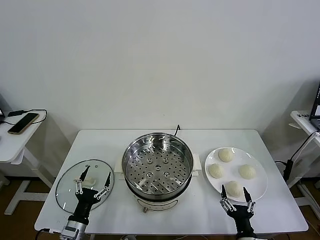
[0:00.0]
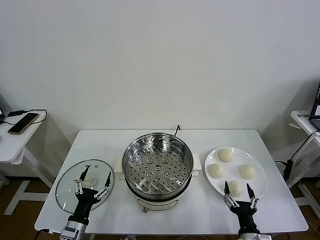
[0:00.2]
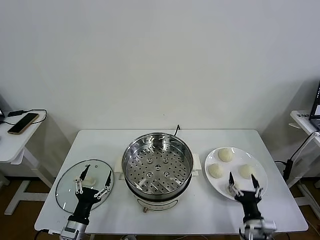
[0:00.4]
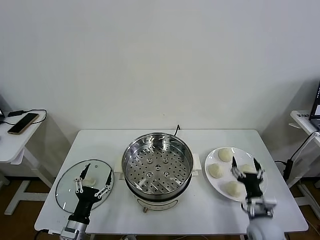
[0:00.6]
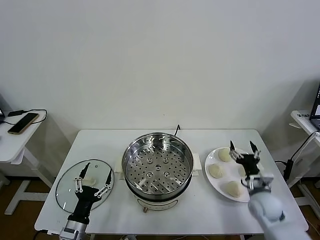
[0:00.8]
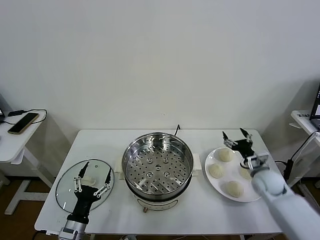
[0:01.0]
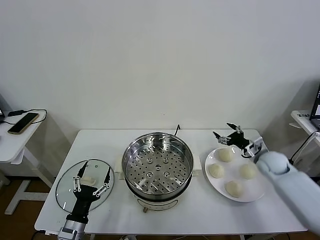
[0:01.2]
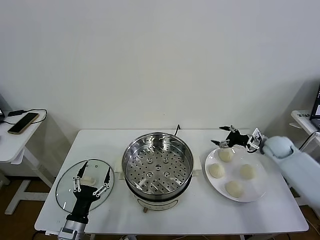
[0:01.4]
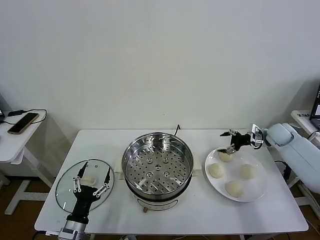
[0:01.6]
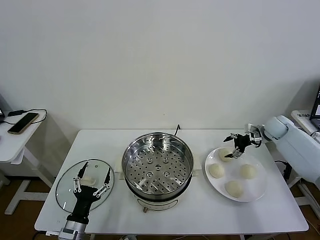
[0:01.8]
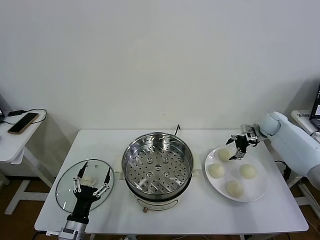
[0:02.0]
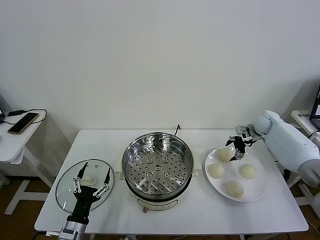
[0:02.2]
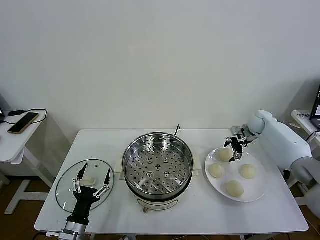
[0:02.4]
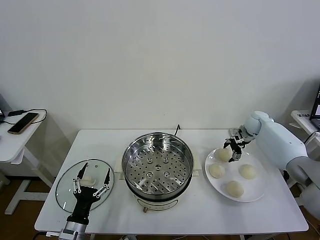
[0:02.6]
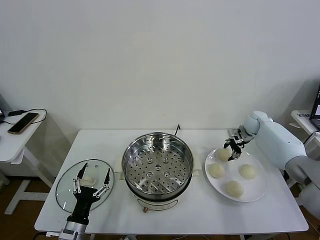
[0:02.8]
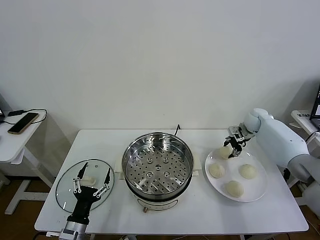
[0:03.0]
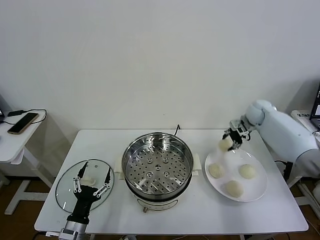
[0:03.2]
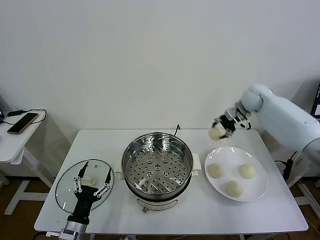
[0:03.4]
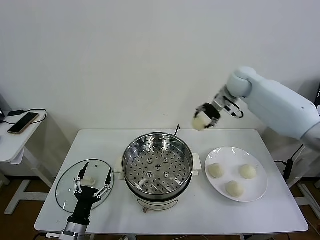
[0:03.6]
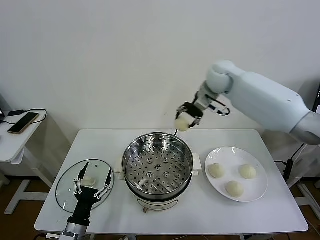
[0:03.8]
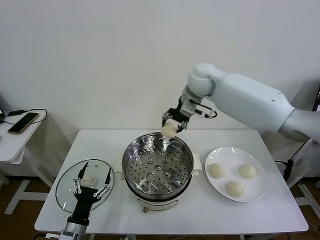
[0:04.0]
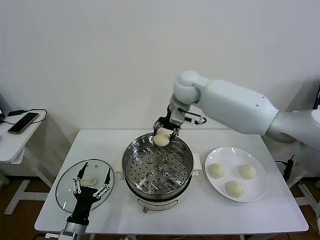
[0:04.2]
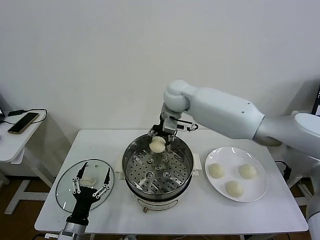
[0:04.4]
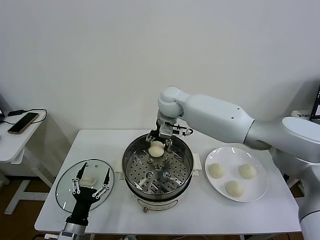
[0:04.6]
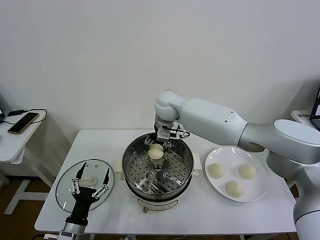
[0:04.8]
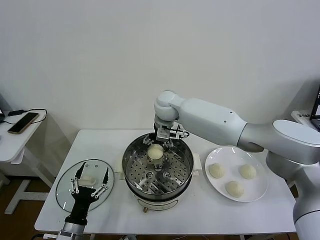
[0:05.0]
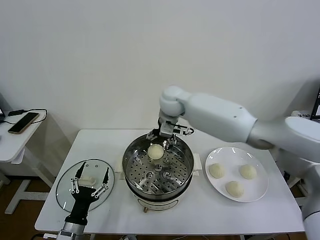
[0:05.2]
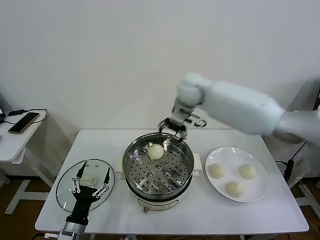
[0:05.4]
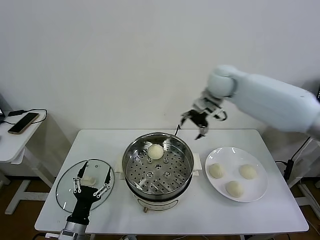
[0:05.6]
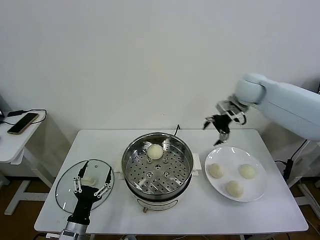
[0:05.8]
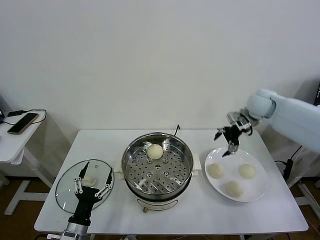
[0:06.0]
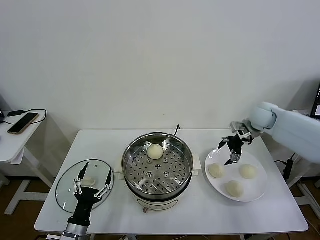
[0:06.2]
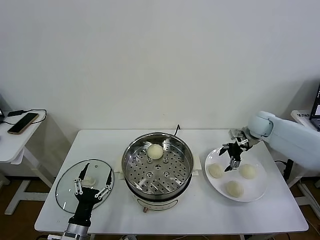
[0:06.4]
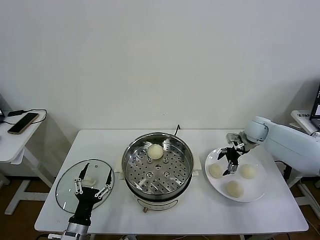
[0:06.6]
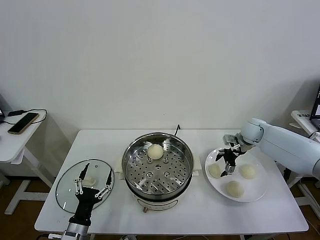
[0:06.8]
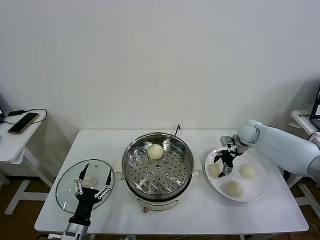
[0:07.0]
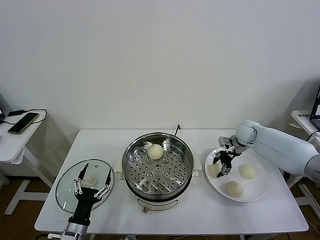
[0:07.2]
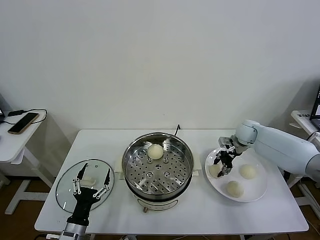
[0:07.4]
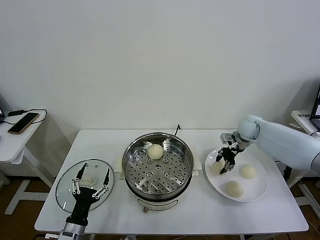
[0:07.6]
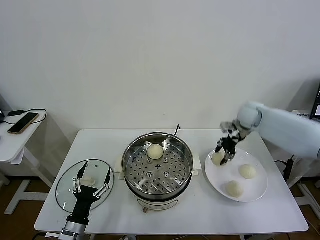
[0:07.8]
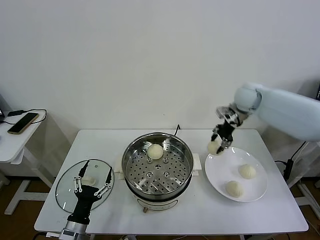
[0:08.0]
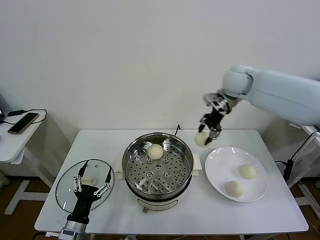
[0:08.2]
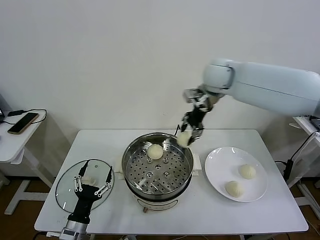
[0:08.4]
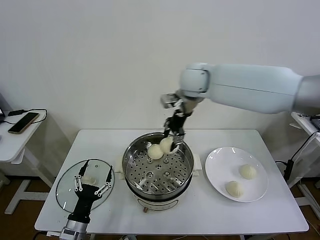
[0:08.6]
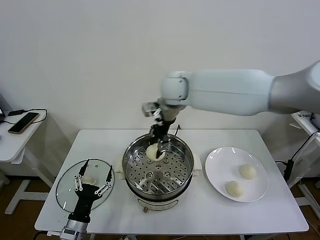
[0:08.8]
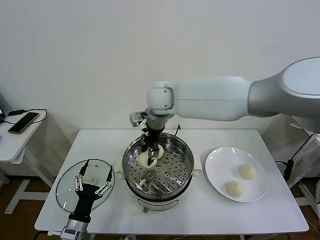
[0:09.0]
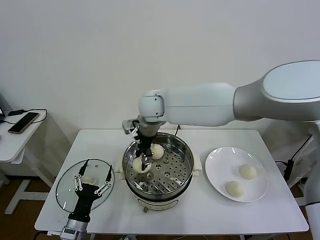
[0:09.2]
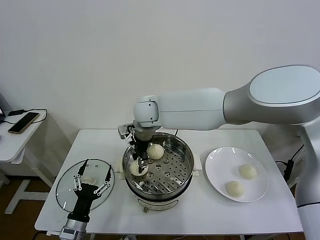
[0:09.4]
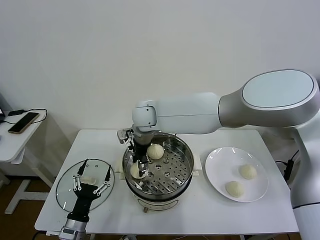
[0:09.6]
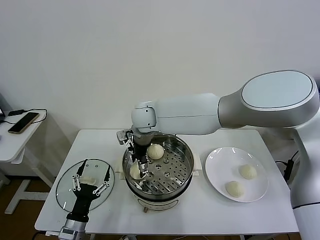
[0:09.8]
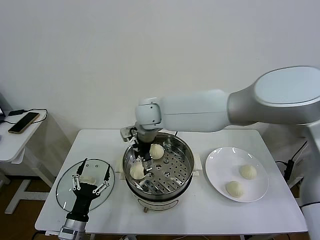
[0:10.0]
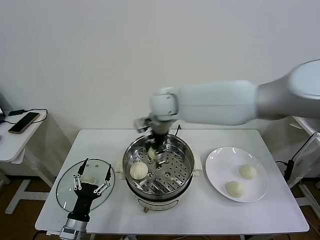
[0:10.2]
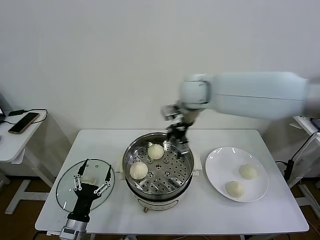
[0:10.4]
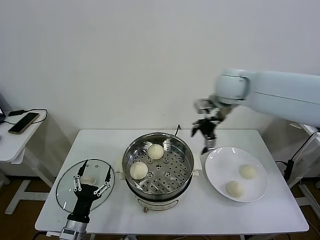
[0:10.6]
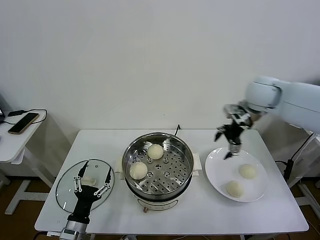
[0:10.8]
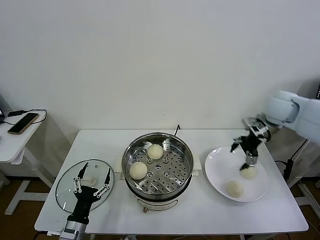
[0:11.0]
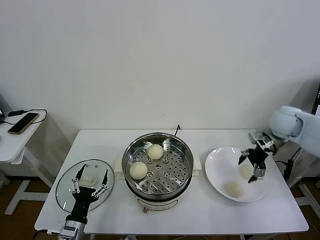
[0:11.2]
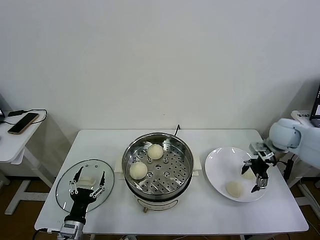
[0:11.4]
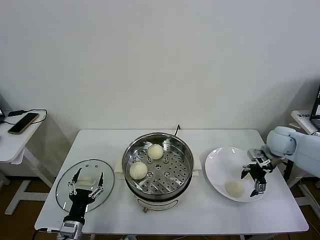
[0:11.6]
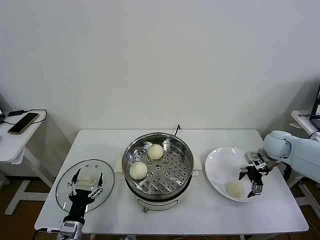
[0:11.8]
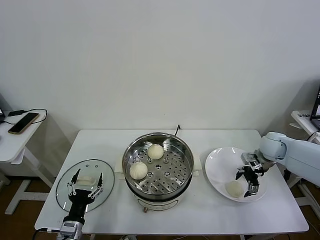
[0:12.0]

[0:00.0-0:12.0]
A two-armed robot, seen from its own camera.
Task of the whole recording: take steamed baozi put them in steamer then cover it.
Step, 0:00.0 to 0:02.6: Grasp the baozi in the plate with right gripper.
Step, 0:02.8 to 0:05.0: Place the baozi on the steamer with right gripper.
Step, 0:05.2 to 0:07.2: Grasp the baozi in the plate with right gripper.
Step, 0:07.4 to 0:09.6: Place the baozi on the steamer with right gripper.
0:01.6 to 0:03.0: The right gripper is displaced to the left and forward by approximately 10 cm, and closes its fingers.
0:03.0 to 0:04.4: The right gripper travels to the left by roughly 35 cm.
0:04.4 to 0:06.0: The right gripper moves to the right, some 30 cm, and opens up.
0:06.0 to 0:07.6: The right gripper heads downward, covering about 10 cm, and closes.
0:07.6 to 0:09.0: The right gripper heads to the left, covering roughly 35 cm.
0:09.0 to 0:10.4: The right gripper goes approximately 15 cm to the right, and opens.
0:10.4 to 0:12.0: The right gripper shifts approximately 35 cm to the right and downward.

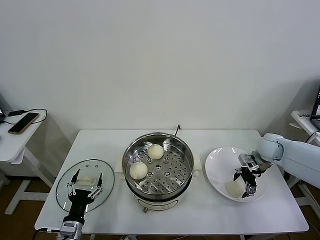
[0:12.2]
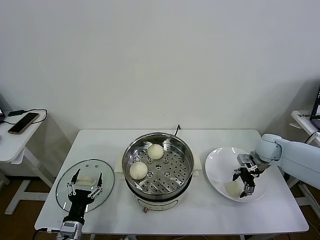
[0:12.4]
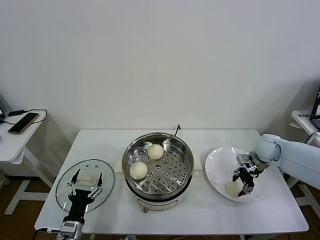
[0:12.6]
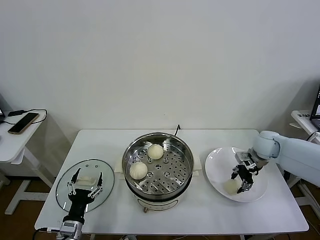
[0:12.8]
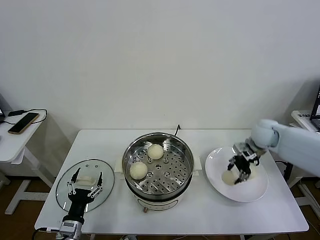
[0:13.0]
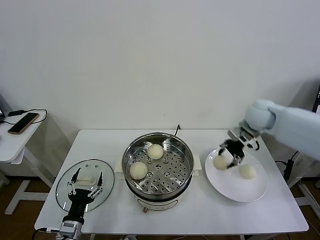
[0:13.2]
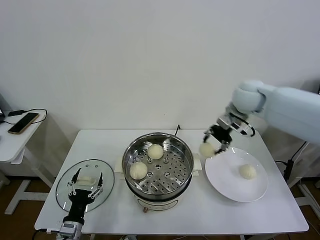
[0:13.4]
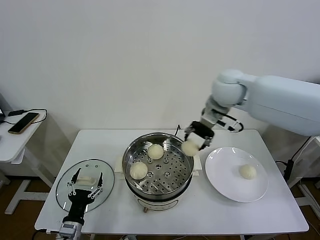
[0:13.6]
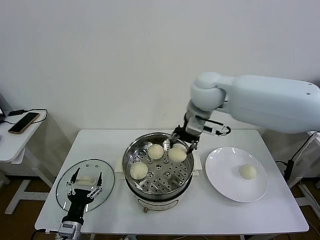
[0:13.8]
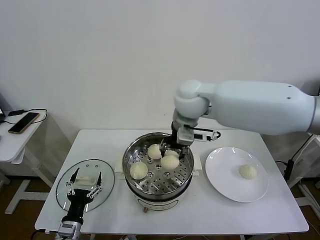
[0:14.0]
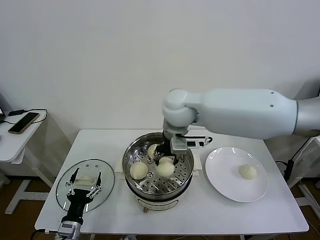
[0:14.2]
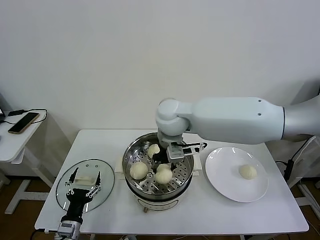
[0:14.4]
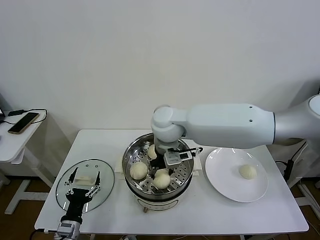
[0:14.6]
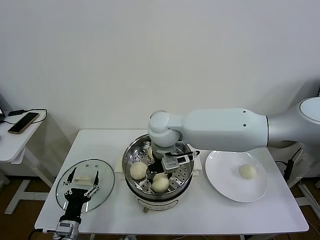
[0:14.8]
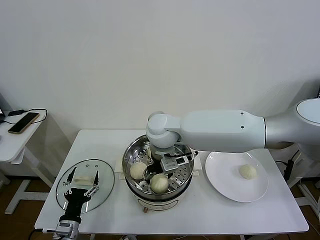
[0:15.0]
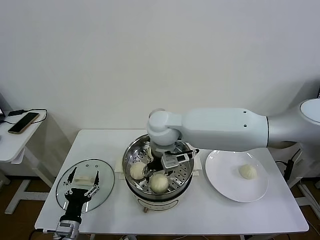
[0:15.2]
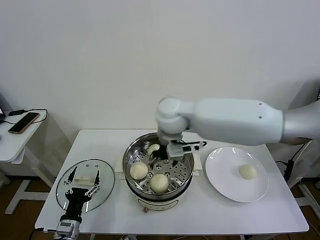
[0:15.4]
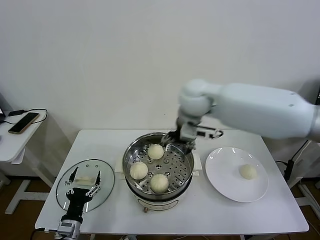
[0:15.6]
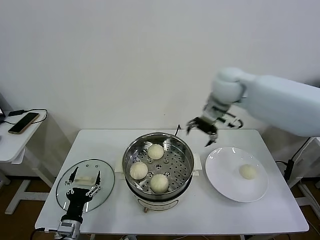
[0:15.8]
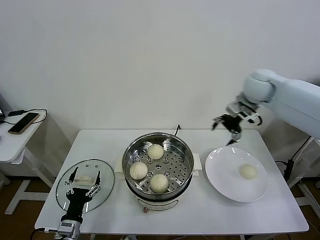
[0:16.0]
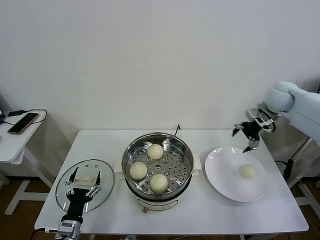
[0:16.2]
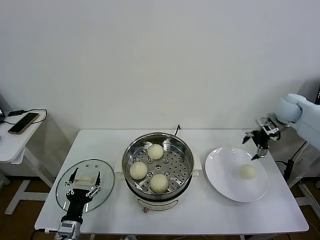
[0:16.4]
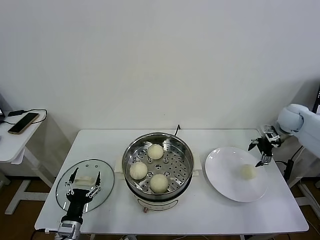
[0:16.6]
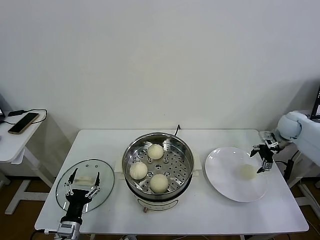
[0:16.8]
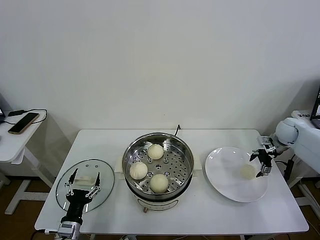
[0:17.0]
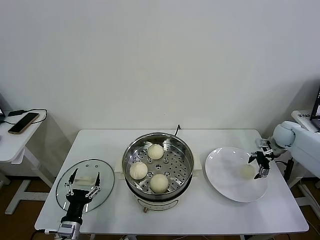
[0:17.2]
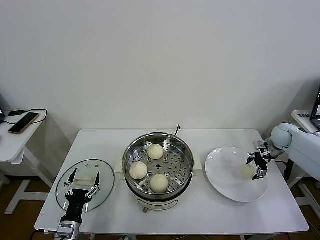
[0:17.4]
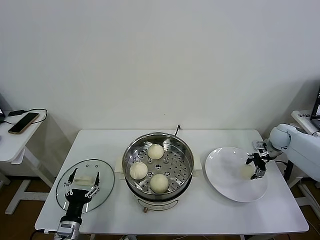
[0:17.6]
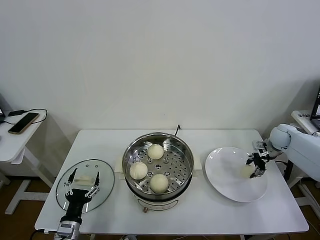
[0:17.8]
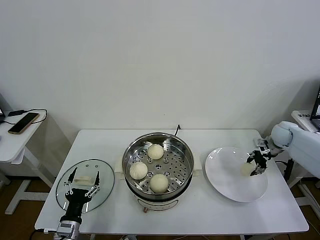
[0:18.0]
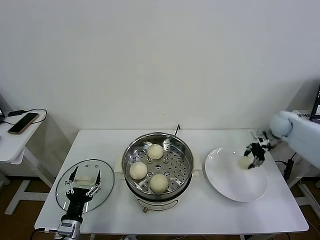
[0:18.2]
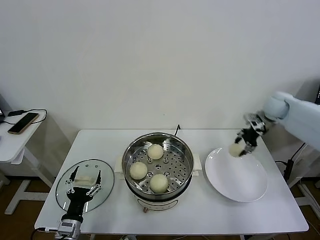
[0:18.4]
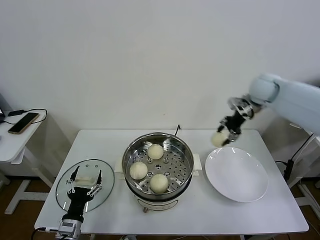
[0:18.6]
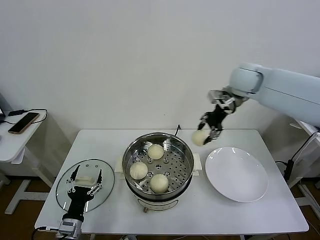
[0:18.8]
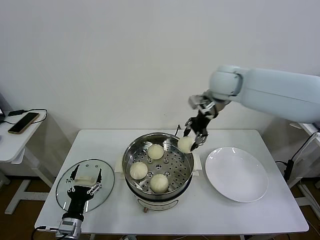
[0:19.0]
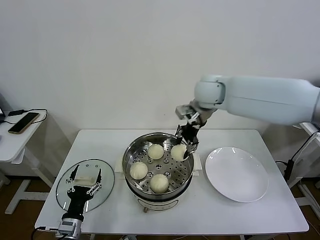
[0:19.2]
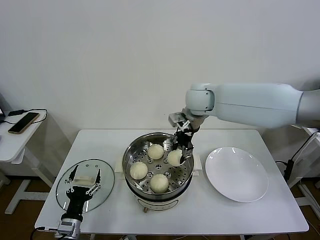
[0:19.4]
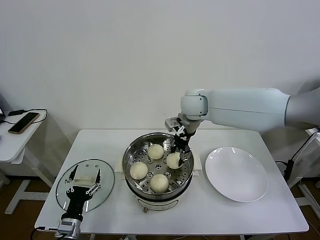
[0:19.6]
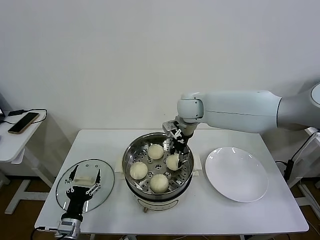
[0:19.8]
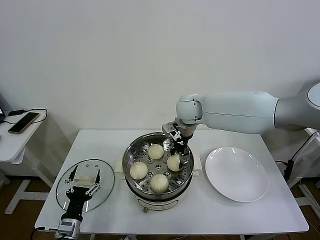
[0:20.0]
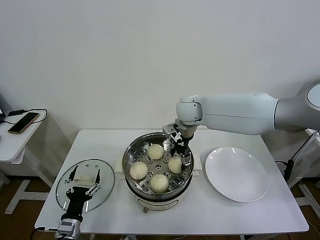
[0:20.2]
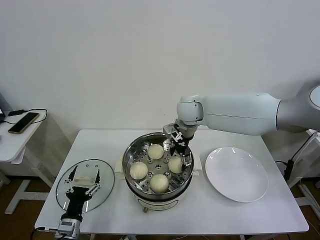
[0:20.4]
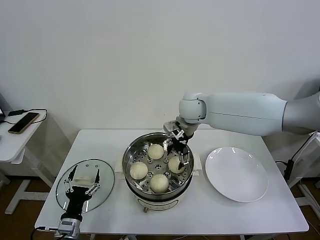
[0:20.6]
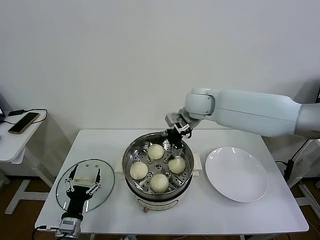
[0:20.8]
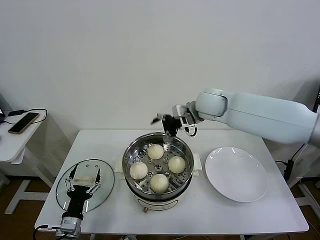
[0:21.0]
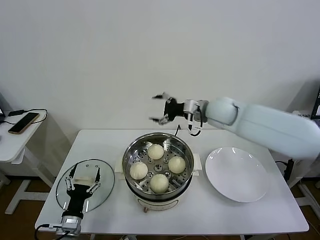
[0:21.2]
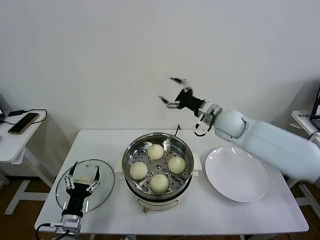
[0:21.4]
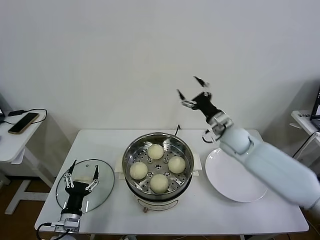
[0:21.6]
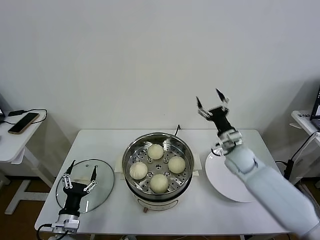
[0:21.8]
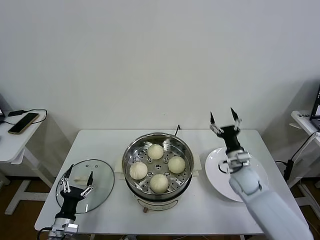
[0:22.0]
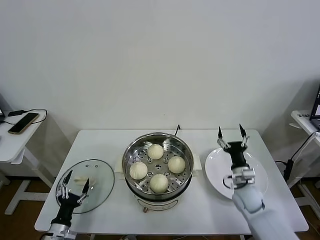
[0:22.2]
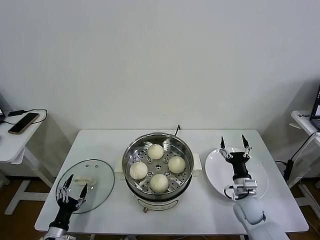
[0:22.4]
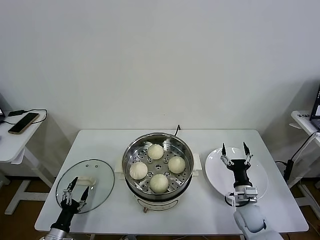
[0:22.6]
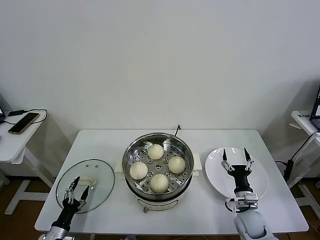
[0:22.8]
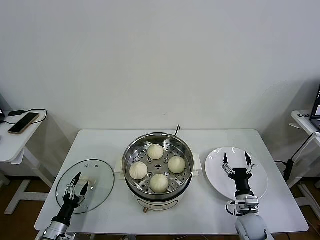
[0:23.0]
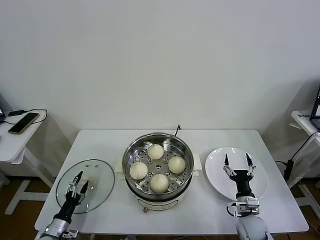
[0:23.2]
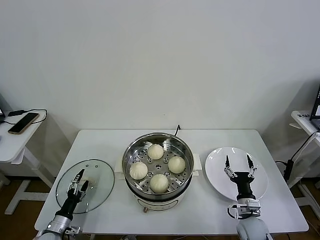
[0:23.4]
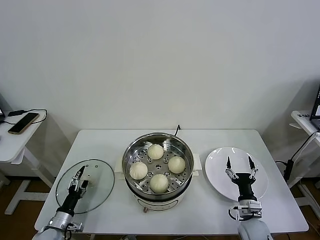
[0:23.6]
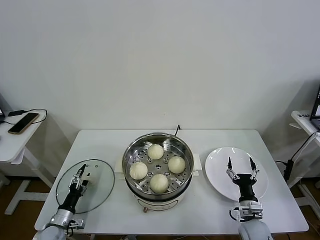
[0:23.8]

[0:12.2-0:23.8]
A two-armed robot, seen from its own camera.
Task of the whole recording: take steamed baozi put them in steamer then cover it.
Step, 0:13.0 to 0:15.0: Place the baozi on the steamer with right gripper.
Step, 0:15.2 to 0:17.8: Grasp the baozi in the plate with right gripper.
Step, 0:18.0 to 0:20.2: Place the baozi on the steamer with right gripper.
0:12.2 to 0:13.6: The right gripper goes some 35 cm upward and to the left, and closes up.
0:13.6 to 0:15.0: The right gripper moves to the left, downward and backward, about 20 cm, and opens up.
0:15.0 to 0:16.6: The right gripper goes roughly 50 cm to the right.
0:16.6 to 0:18.0: The right gripper heads downward, covering approximately 5 cm, and closes its fingers.
0:18.0 to 0:19.4: The right gripper travels to the left and upward by some 40 cm.
0:19.4 to 0:21.0: The right gripper opens up.
0:21.0 to 0:22.4: The right gripper shifts roughly 40 cm downward, backward and to the right. Meanwhile the left gripper is displaced to the left and downward by about 10 cm.
0:22.4 to 0:23.8: The left gripper travels forward by approximately 5 cm. The right gripper shifts roughly 5 cm backward.
